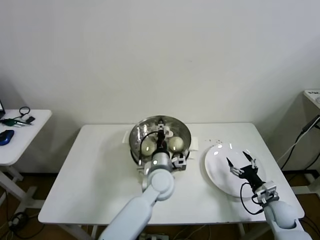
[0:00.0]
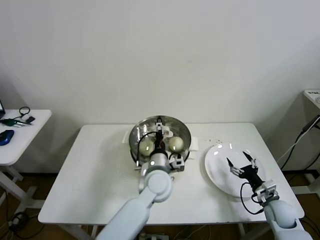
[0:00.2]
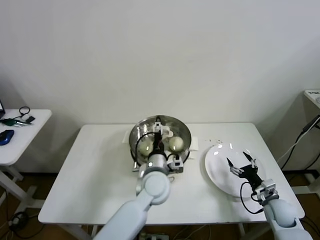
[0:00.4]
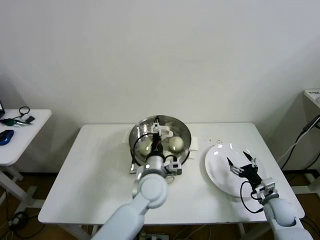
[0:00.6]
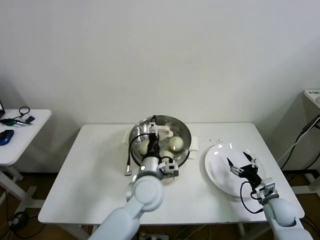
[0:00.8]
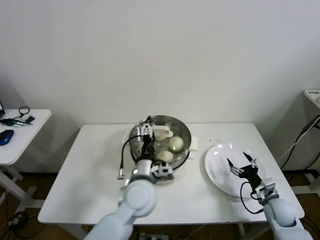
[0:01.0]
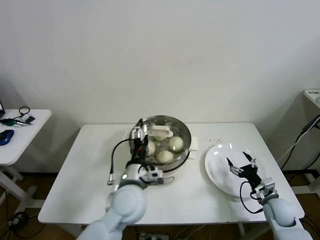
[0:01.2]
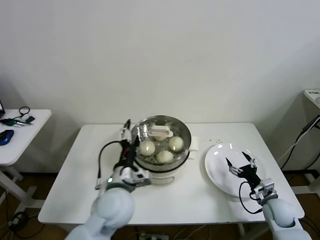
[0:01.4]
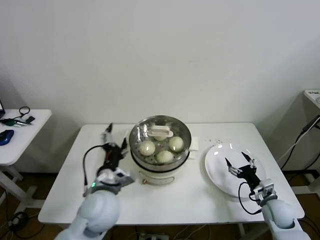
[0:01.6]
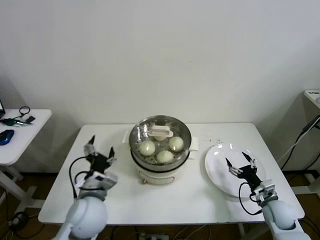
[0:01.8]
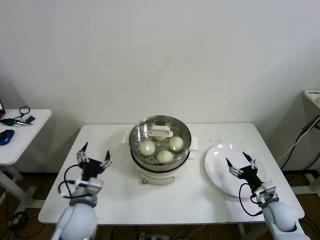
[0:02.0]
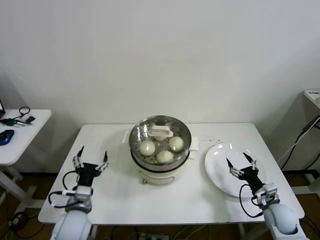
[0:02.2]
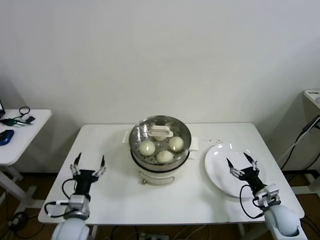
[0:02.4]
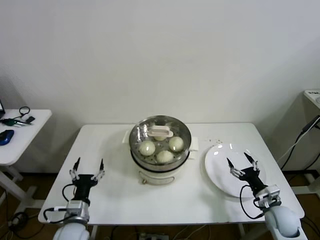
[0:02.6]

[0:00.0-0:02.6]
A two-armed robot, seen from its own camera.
0:00.0 to 0:01.2: The left gripper heads to the left, backward and upward, covering some 10 cm, and opens its fingers.
0:01.2 to 0:02.6: The left gripper moves to the left and downward, some 25 cm.
